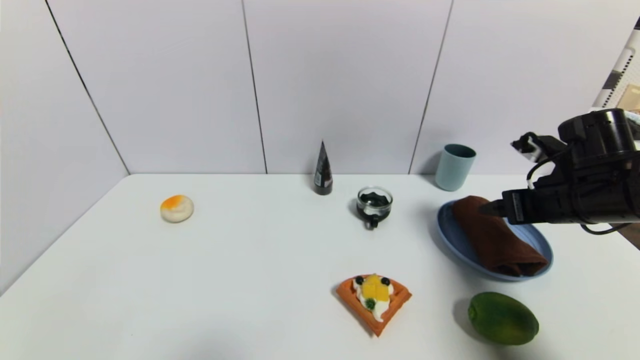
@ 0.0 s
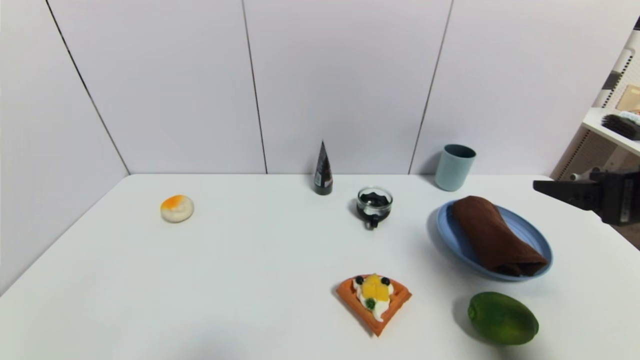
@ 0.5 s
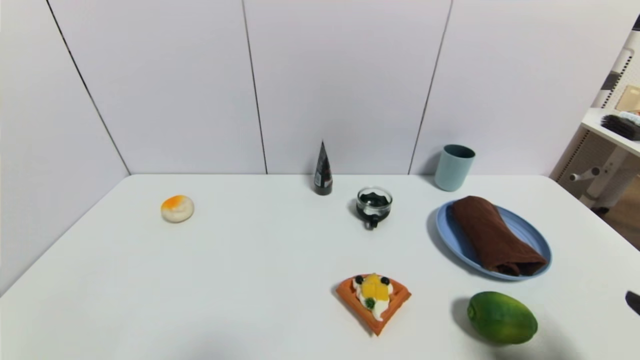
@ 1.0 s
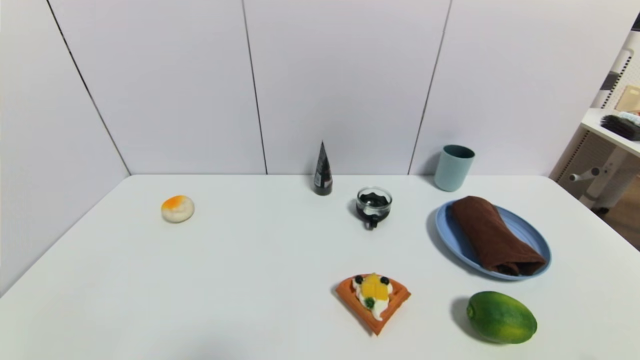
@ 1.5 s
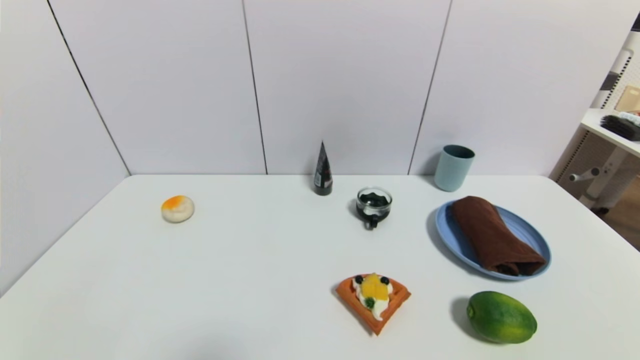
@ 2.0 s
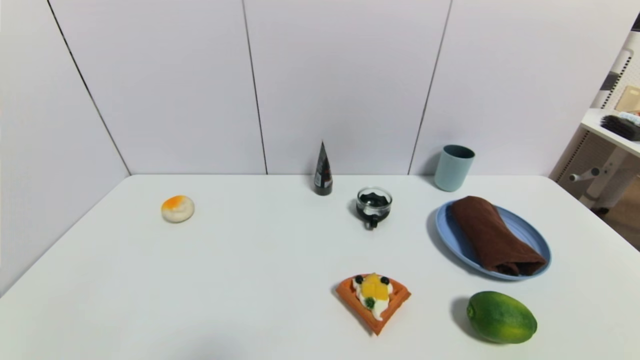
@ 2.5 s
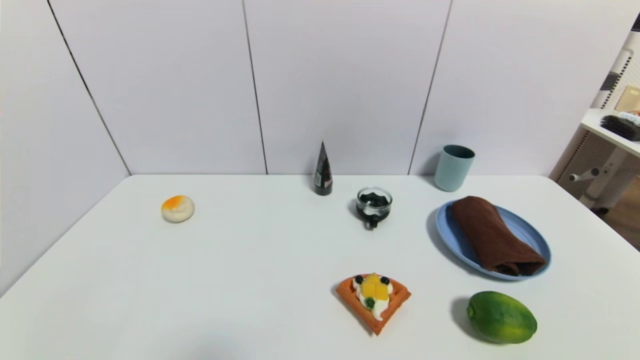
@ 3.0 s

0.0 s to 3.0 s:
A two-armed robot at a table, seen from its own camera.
Task of the whole recording: use a gripper to pick the target object and place on the blue plate.
0.0 to 1.5 s: The right gripper heads backward, covering about 30 cm.

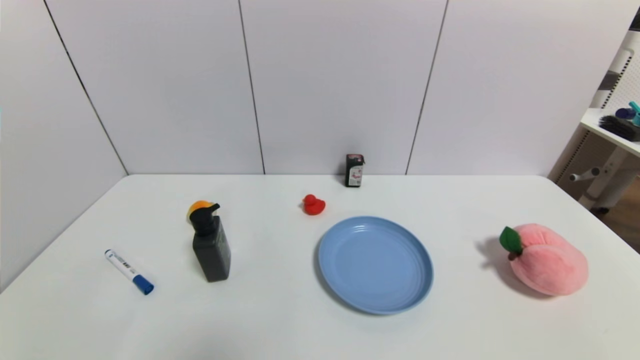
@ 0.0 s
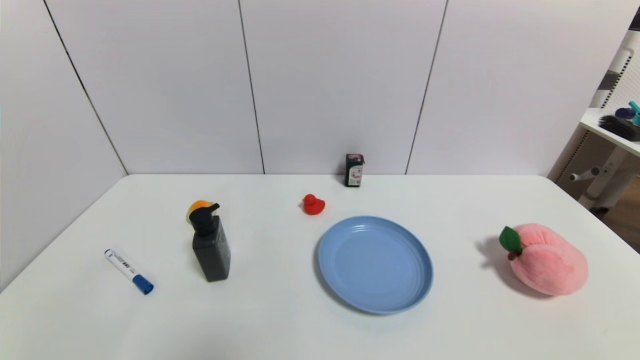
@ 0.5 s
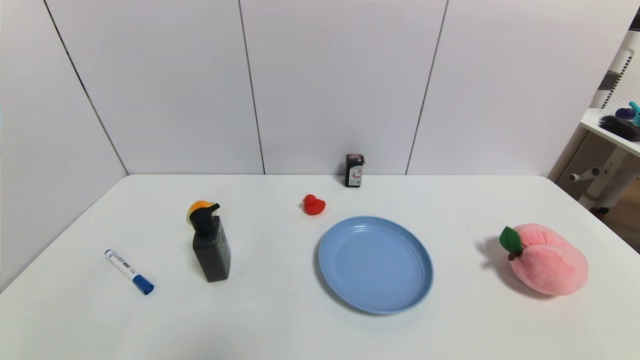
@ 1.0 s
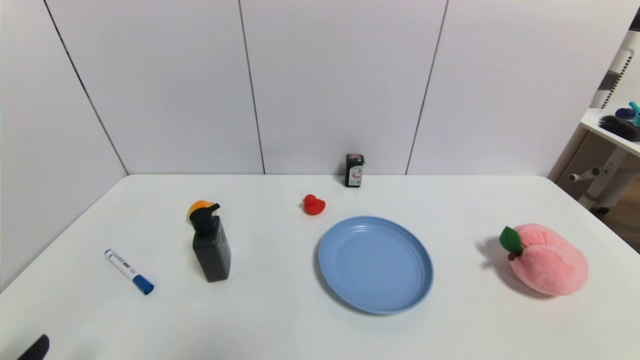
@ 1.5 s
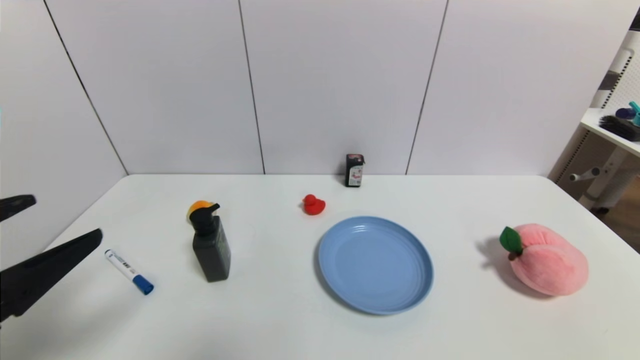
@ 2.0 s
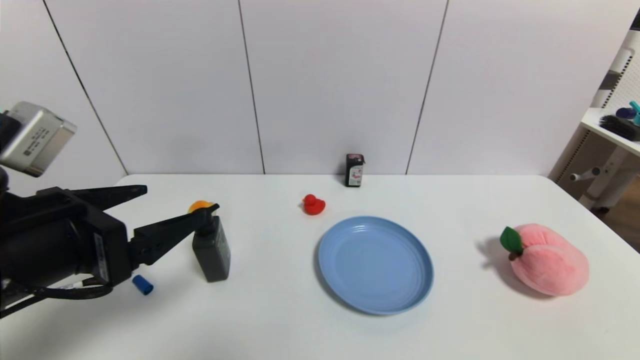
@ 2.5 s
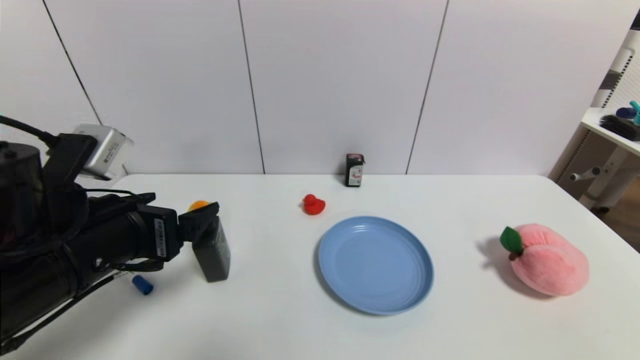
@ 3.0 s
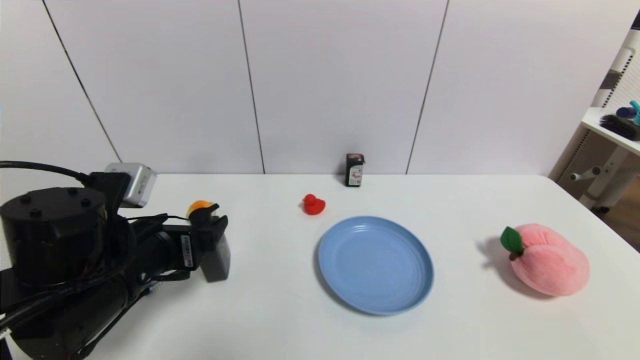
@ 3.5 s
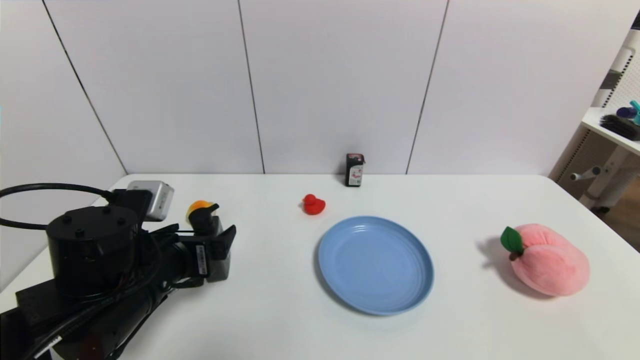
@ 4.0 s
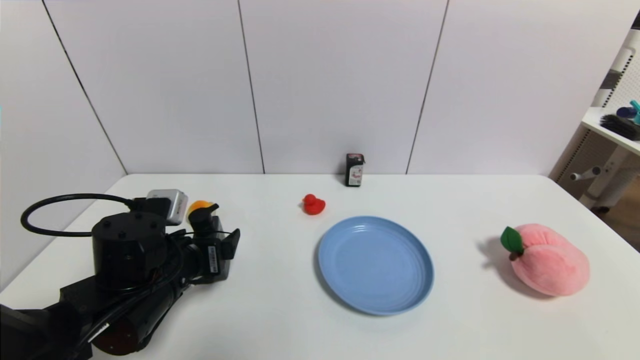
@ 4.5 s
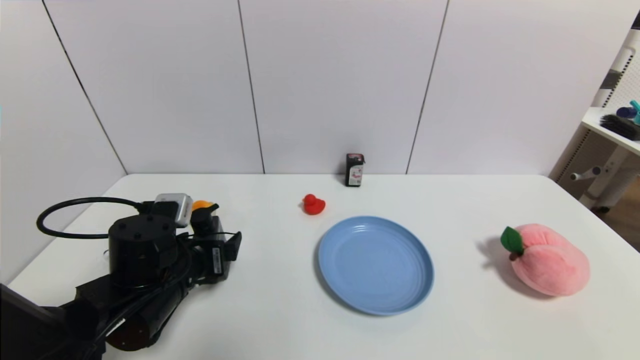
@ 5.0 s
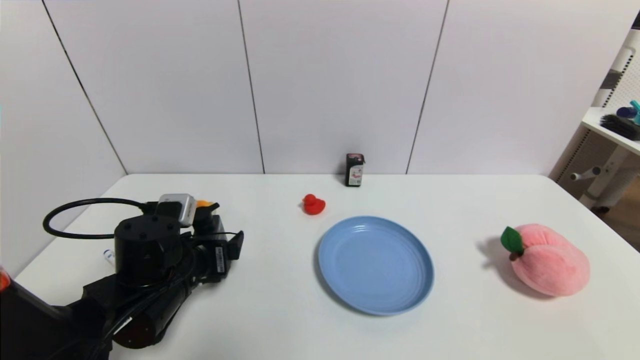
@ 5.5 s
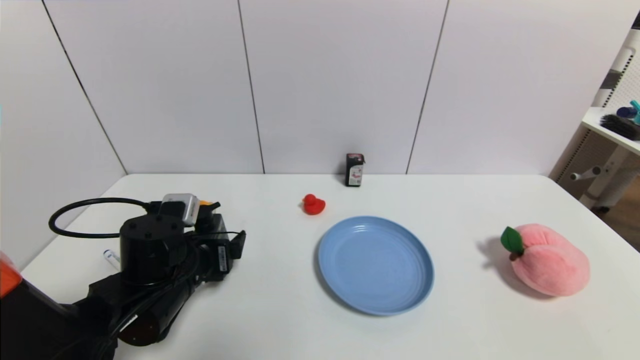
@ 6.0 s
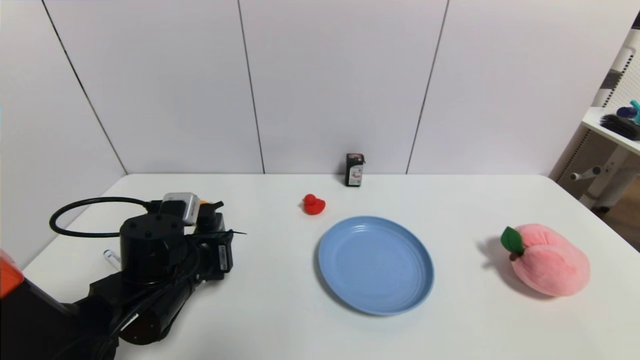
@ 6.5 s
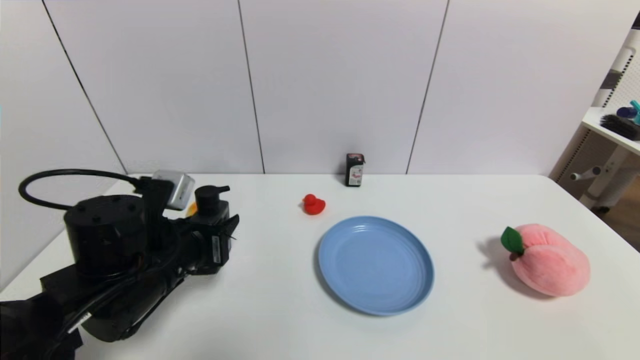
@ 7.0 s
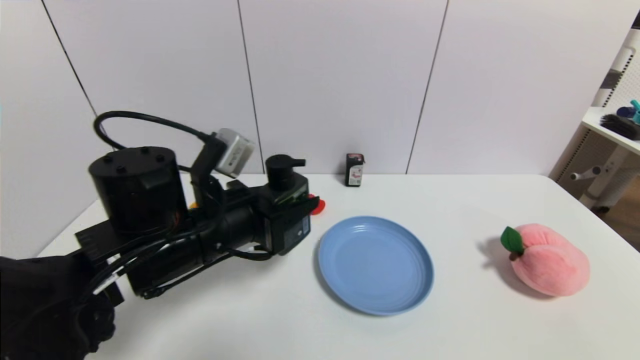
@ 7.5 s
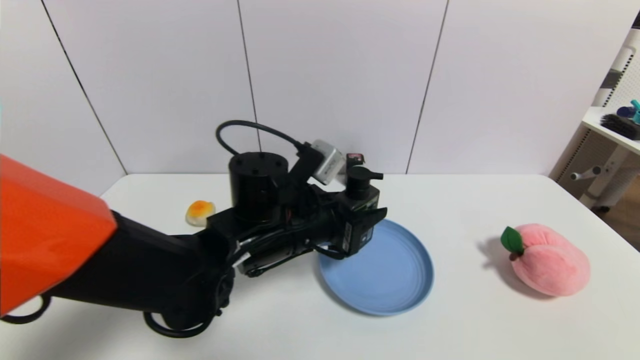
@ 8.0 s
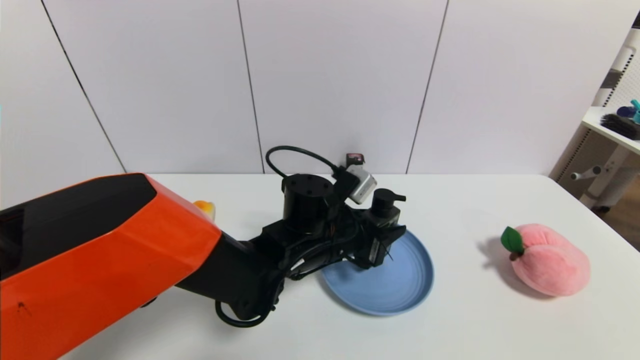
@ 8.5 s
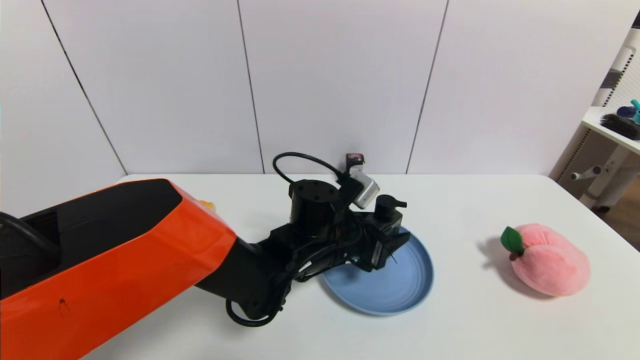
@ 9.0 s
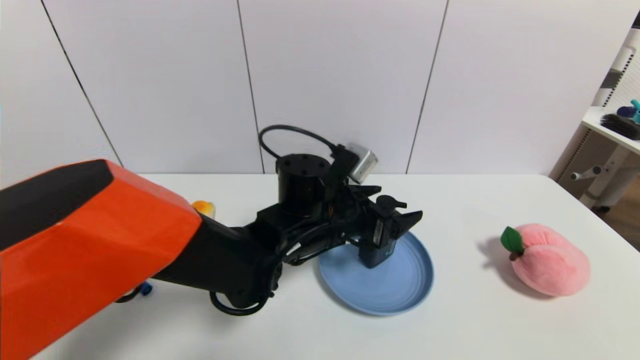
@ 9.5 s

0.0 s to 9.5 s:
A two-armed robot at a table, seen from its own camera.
Task of the whole recording: use a gripper to pick the target object and place on the blue plate.
Step, 0.0 to 6.0 s: Grasp the hard facial cleanser with the left gripper.
Step, 6.5 to 9.0 s: Place the hard facial cleanser on the blue plate with the left gripper.
0.0 to 2.0 s: The left gripper travels upward and forward by roughly 20 cm.
2.0 to 4.0 s: The left gripper goes roughly 20 cm forward, downward and to the right.
4.0 to 5.5 s: The left gripper ends up roughly 5 cm from where it was.
5.5 to 7.5 s: The left gripper moves upward and to the right, approximately 10 cm, and closes its fingers.
7.5 to 9.5 s: The left gripper shifts some 15 cm to the right and forward, and opens.

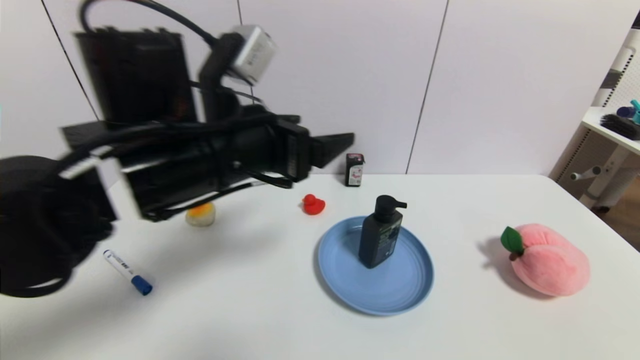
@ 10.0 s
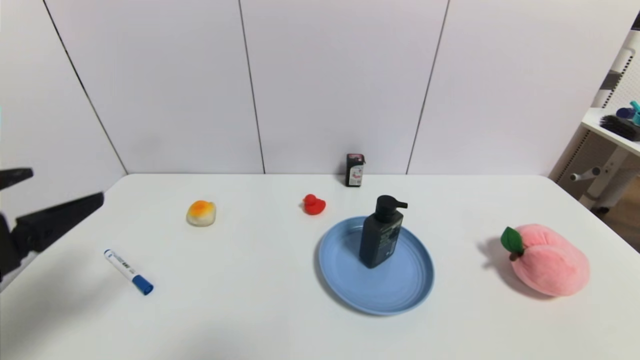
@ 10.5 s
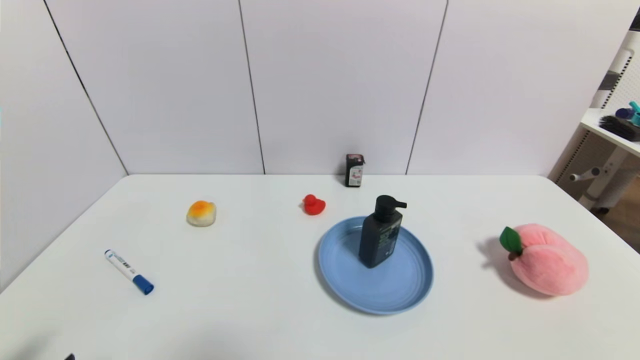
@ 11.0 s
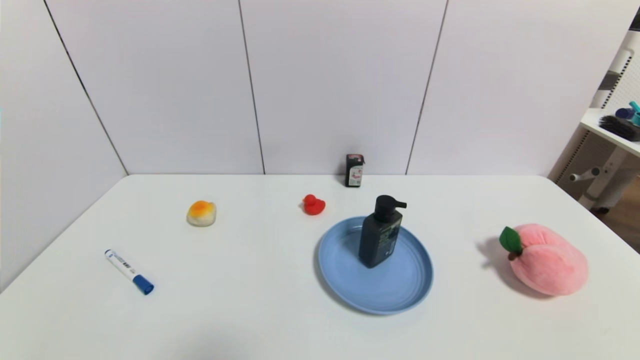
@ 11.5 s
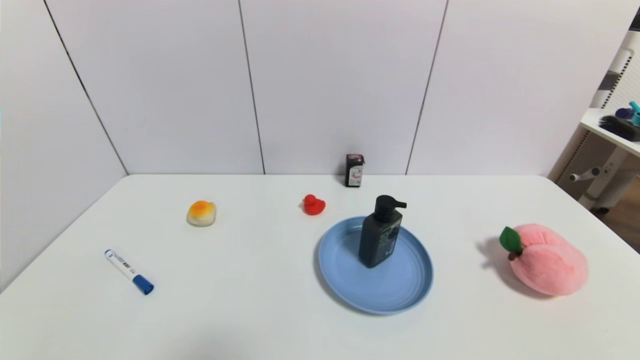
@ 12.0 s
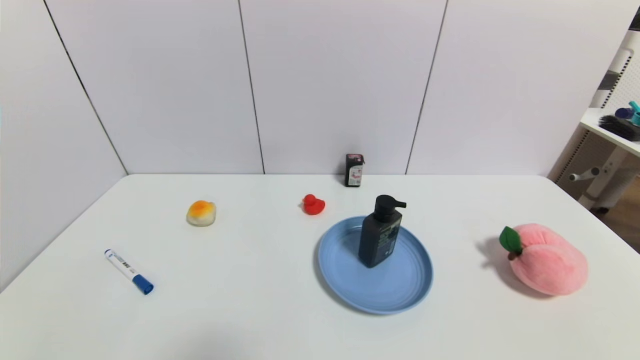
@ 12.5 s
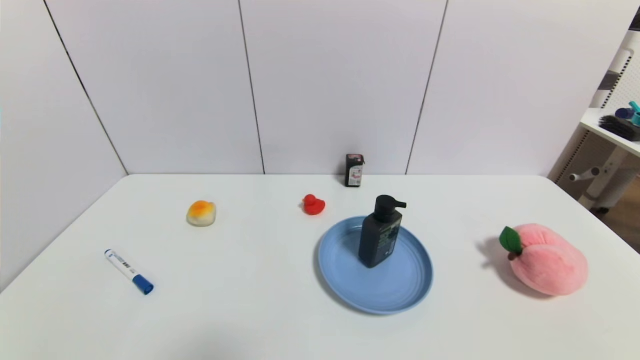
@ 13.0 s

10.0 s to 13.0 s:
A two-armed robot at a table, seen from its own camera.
Task of the whole recording: use a gripper to pick the target object and place on the blue plate.
10.0 to 11.5 s: The left gripper goes some 40 cm backward, downward and to the left.
11.5 to 13.0 s: Both grippers stay put.
